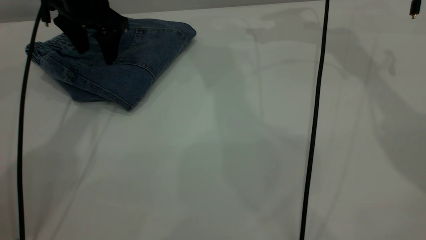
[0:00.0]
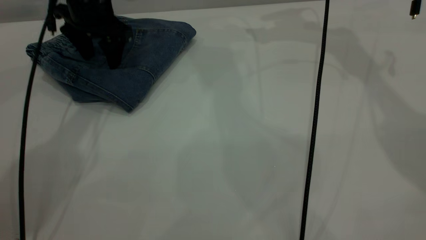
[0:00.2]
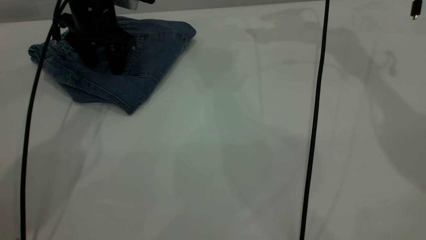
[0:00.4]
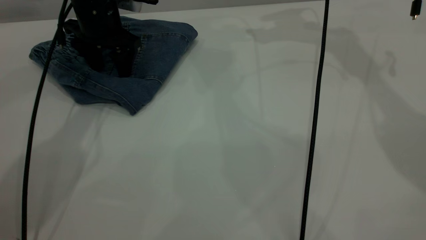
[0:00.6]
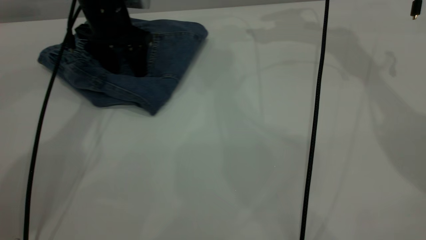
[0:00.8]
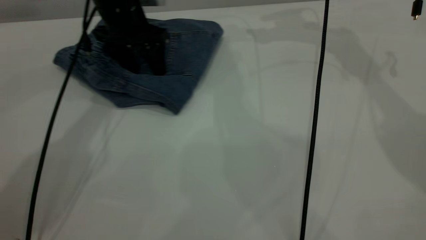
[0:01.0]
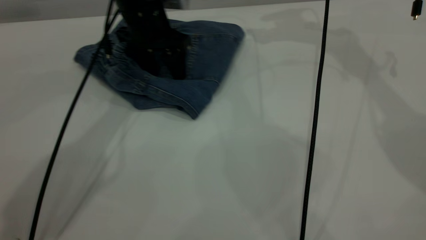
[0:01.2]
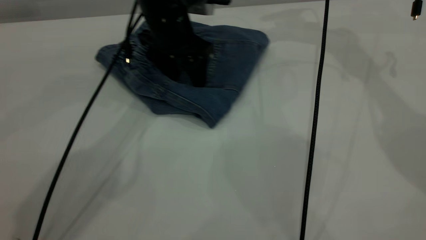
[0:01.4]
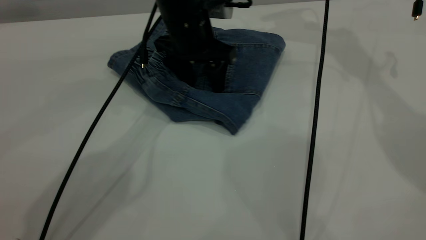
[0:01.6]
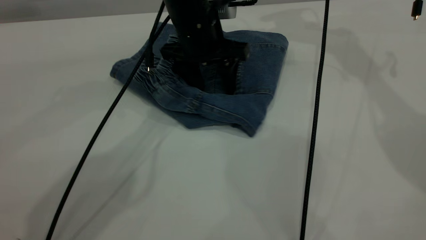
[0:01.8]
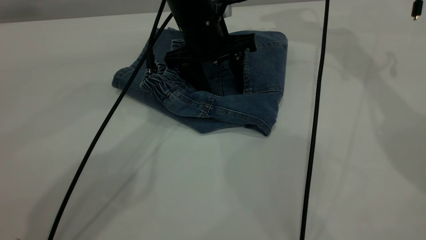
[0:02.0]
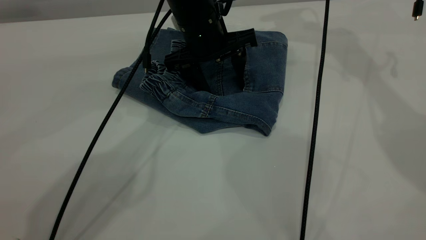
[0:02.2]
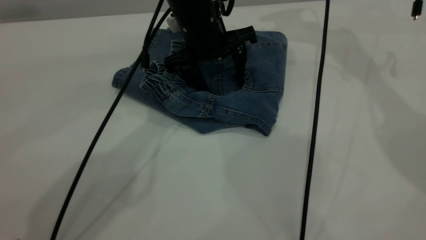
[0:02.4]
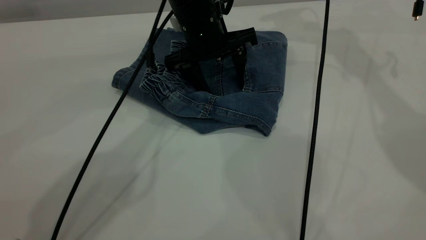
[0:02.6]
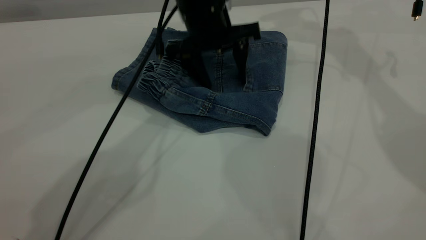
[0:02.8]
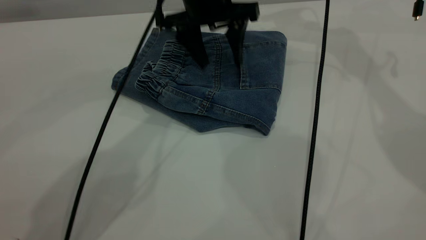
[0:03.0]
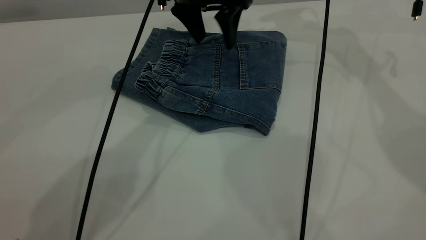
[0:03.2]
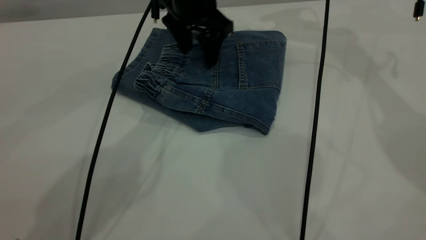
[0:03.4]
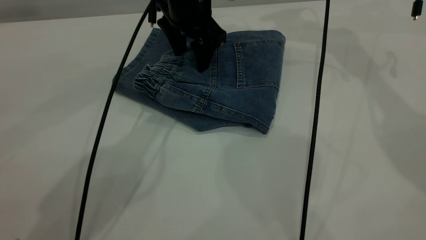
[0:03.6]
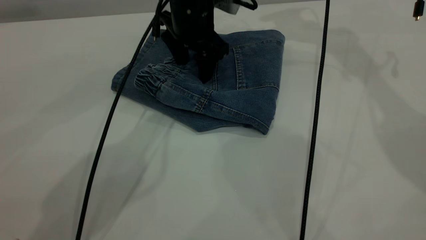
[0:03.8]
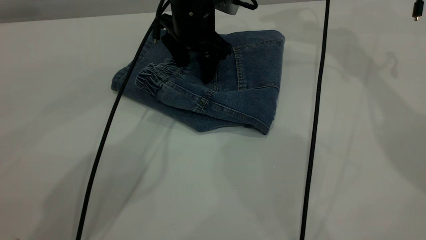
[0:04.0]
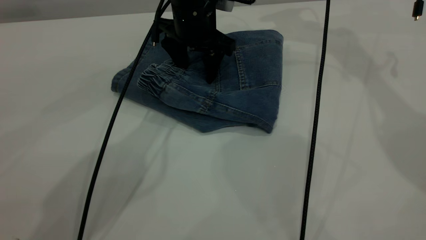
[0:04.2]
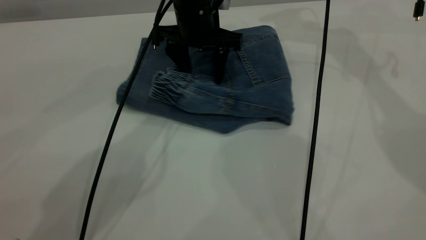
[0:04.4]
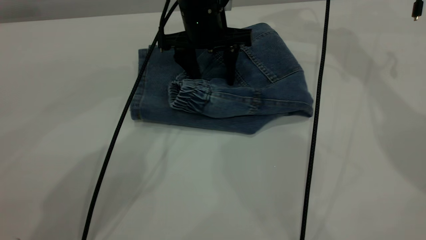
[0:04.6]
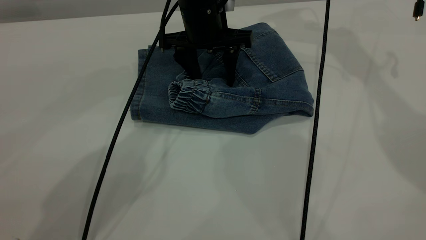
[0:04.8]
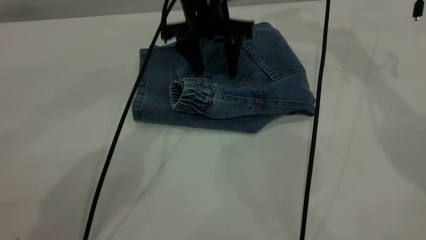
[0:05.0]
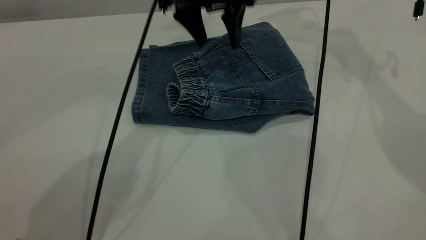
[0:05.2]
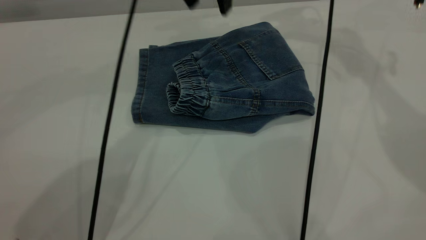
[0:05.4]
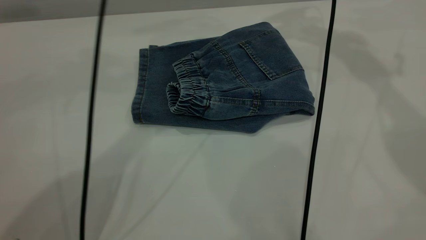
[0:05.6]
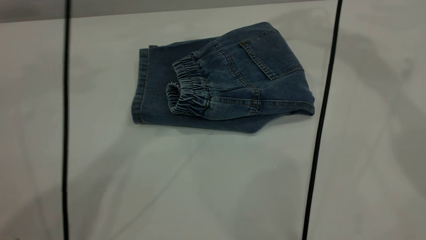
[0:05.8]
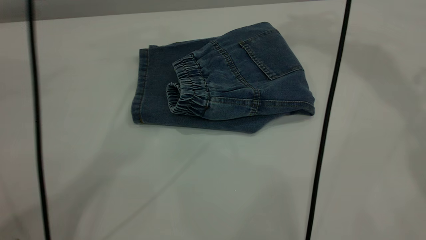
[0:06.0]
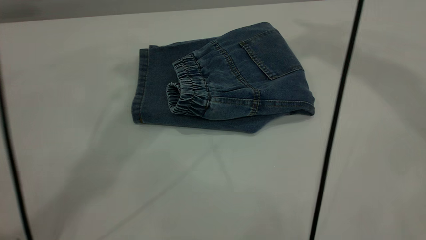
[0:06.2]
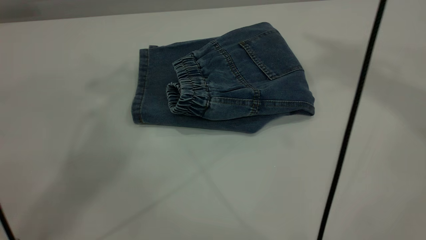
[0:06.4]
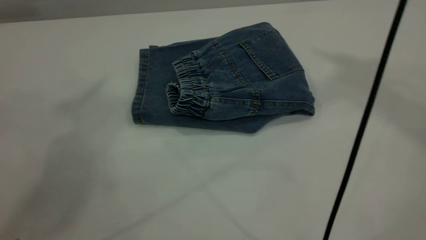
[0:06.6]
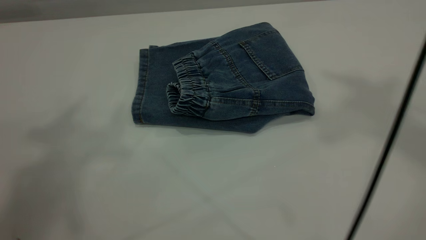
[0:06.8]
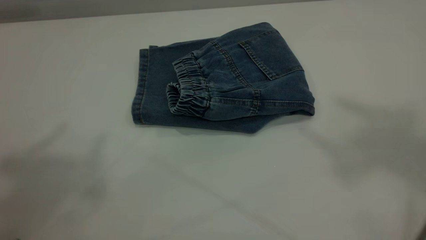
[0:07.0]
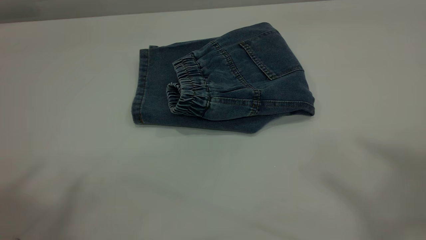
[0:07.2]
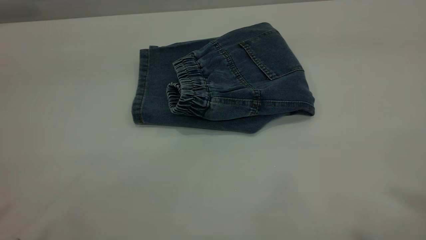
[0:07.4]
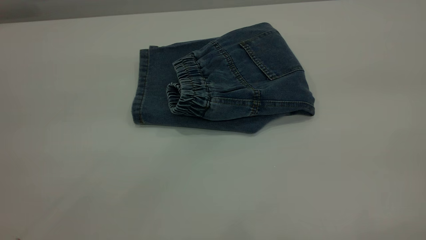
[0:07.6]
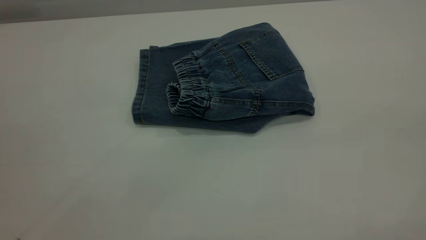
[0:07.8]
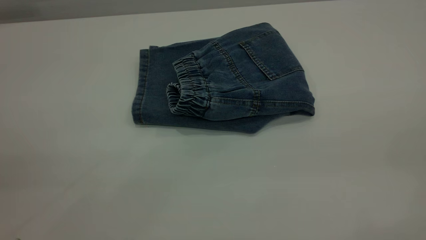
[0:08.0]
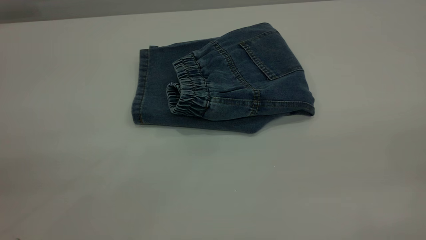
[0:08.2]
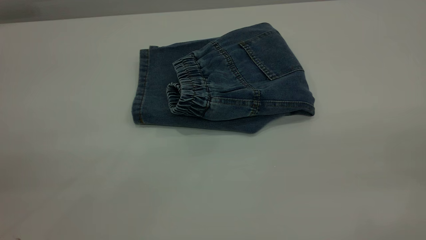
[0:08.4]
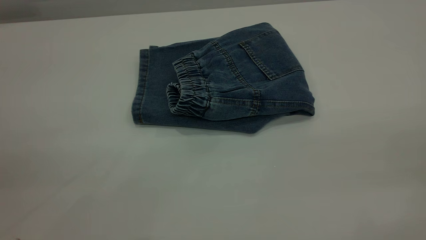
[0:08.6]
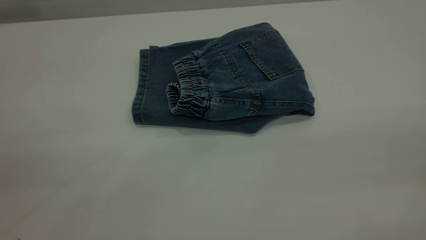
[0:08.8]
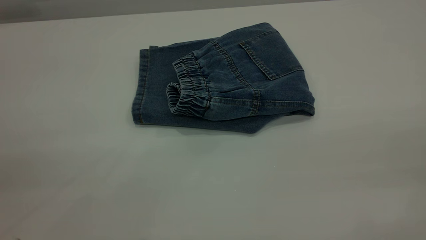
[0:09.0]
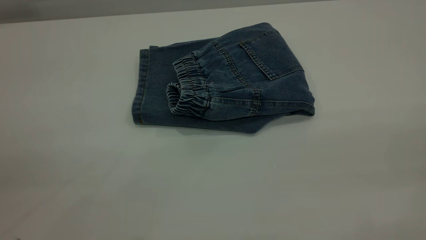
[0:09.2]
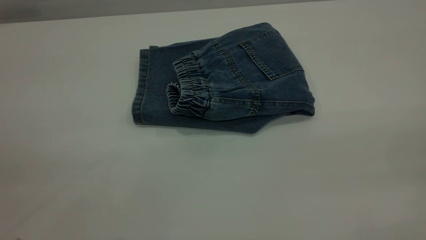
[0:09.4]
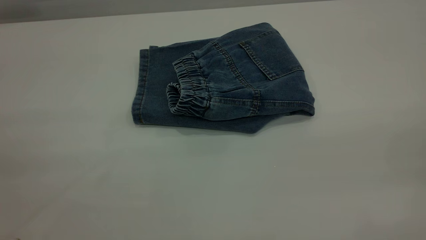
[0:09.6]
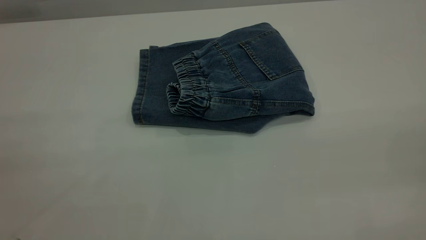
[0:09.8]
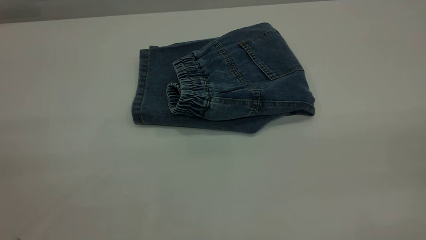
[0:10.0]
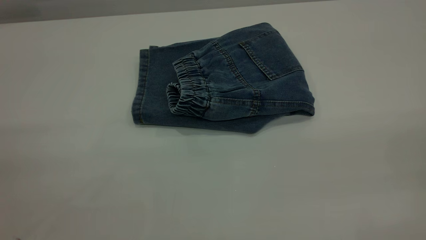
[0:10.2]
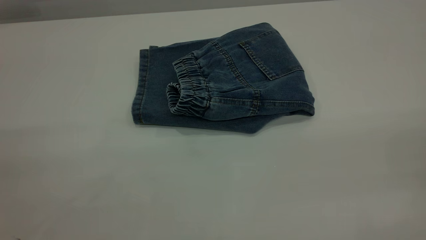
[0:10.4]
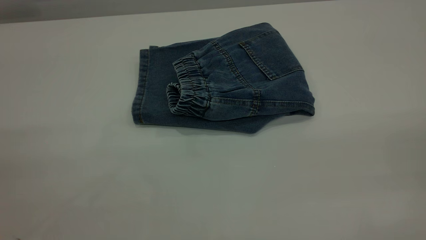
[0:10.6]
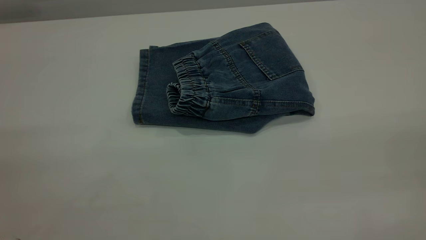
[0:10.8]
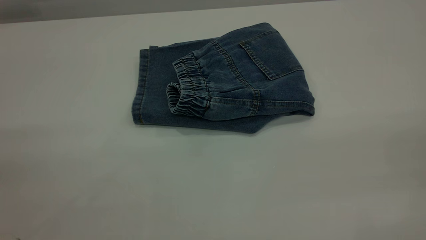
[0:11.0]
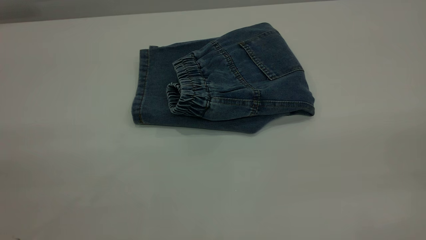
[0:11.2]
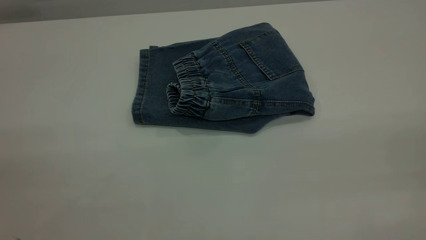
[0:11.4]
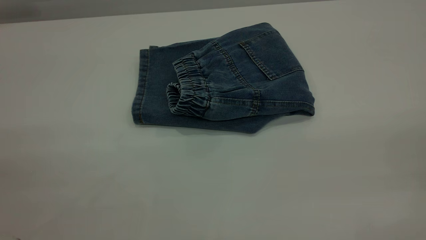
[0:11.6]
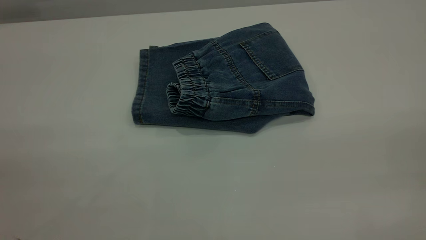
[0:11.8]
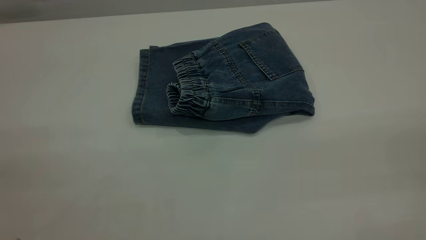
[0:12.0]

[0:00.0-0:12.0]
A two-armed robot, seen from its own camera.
0:00.0 to 0:01.6: The left gripper goes some 15 cm to the right.
0:01.6 to 0:03.0: The left gripper moves upward, about 5 cm.
0:03.0 to 0:04.4: The left gripper is displaced downward by some 5 cm.
0:04.4 to 0:06.0: The right gripper is displaced upward by roughly 20 cm. Meanwhile the left gripper moves upward, roughly 35 cm.
0:06.0 to 0:07.6: The left gripper travels backward and to the left by some 40 cm. The right gripper heads backward, covering some 40 cm.
